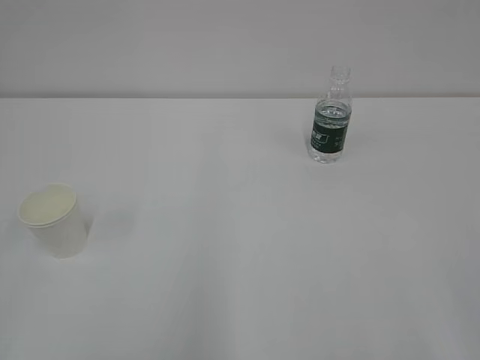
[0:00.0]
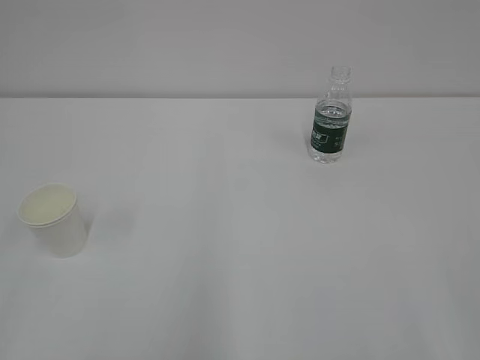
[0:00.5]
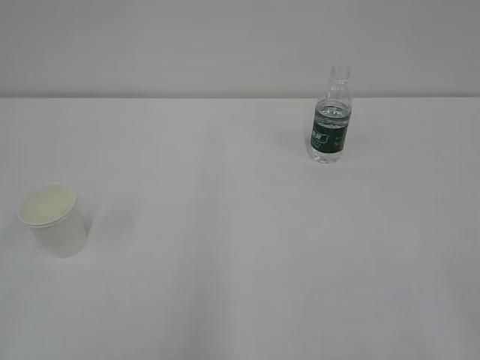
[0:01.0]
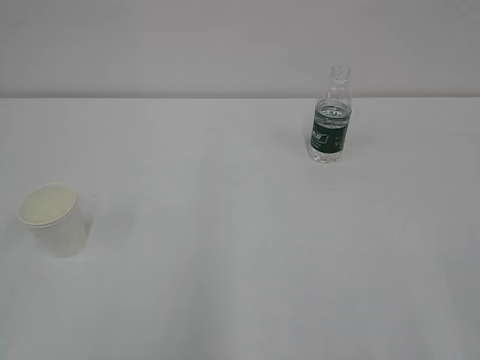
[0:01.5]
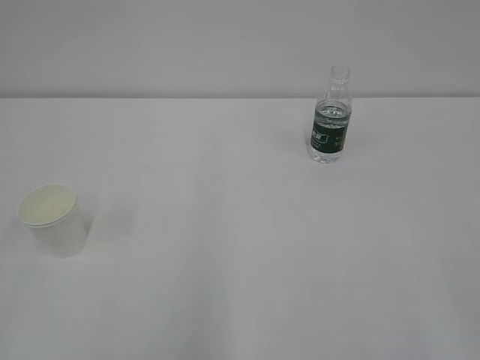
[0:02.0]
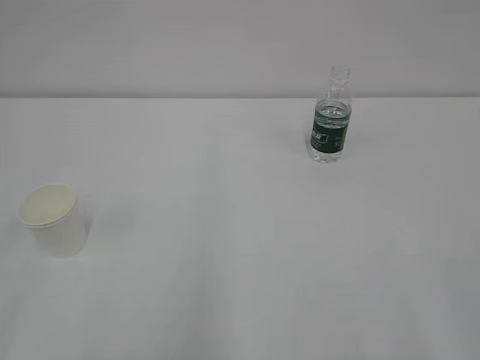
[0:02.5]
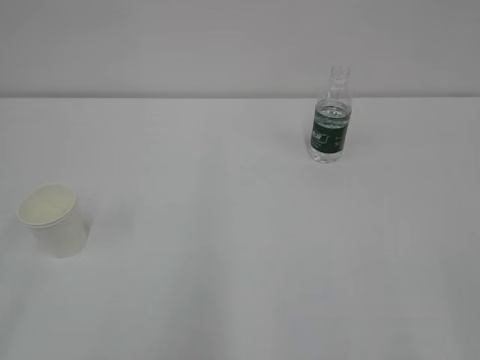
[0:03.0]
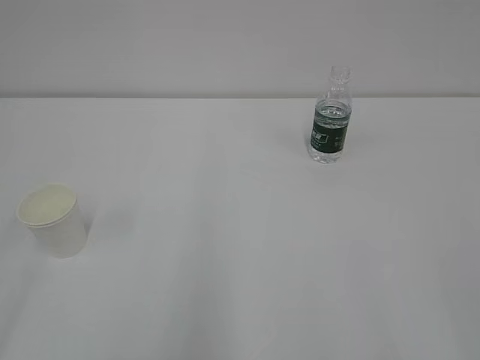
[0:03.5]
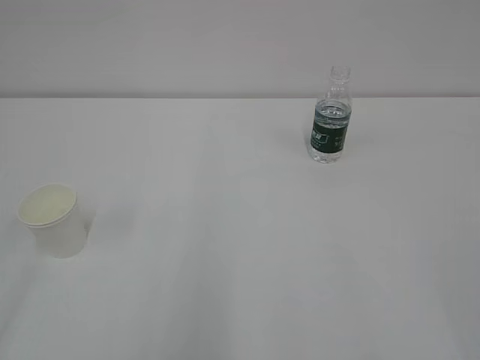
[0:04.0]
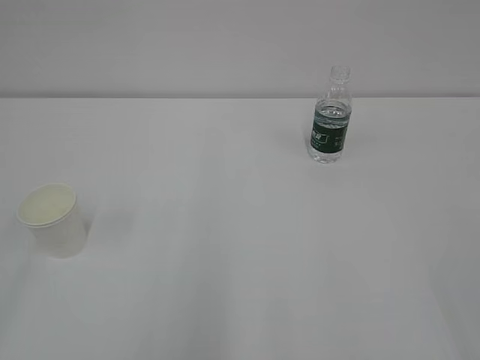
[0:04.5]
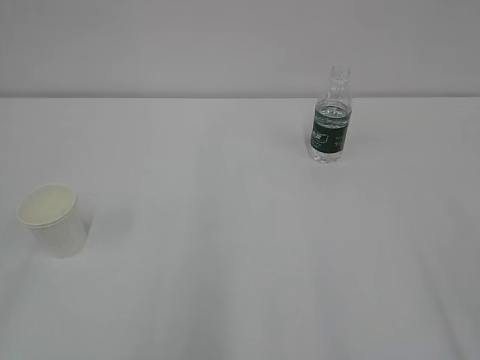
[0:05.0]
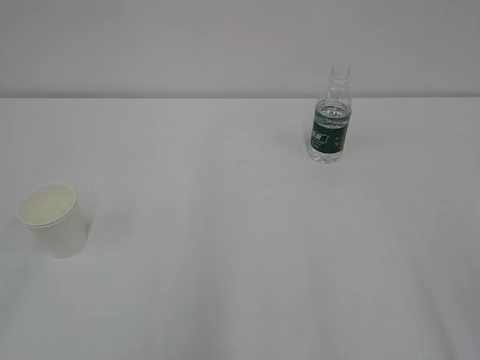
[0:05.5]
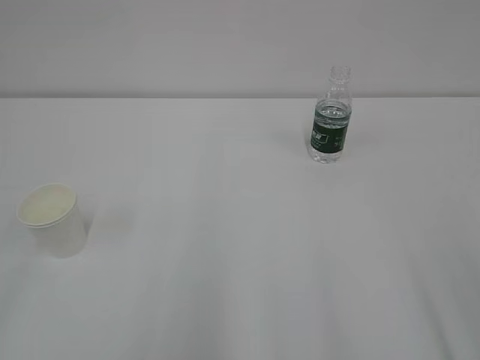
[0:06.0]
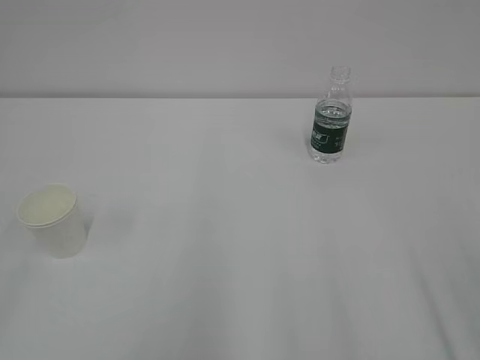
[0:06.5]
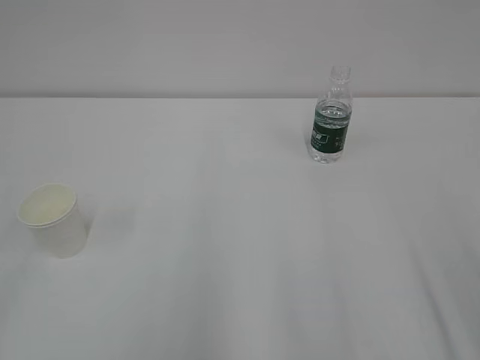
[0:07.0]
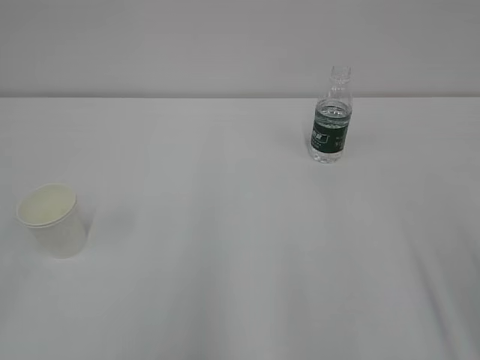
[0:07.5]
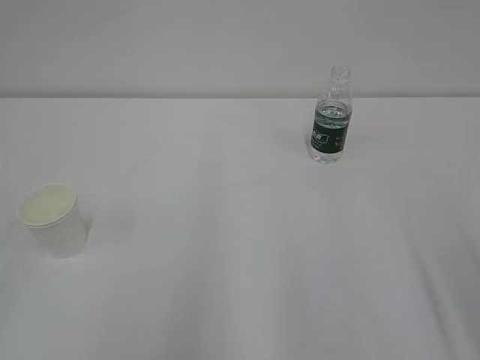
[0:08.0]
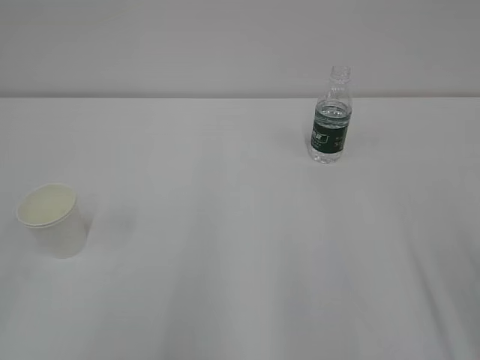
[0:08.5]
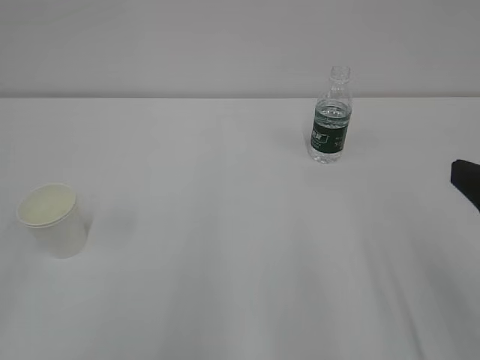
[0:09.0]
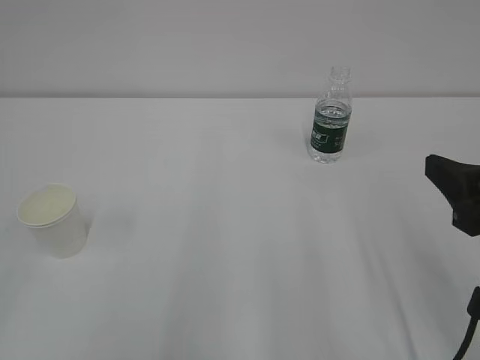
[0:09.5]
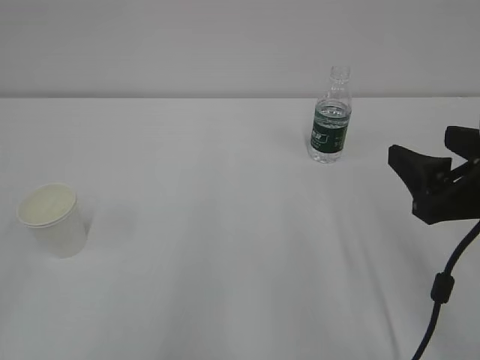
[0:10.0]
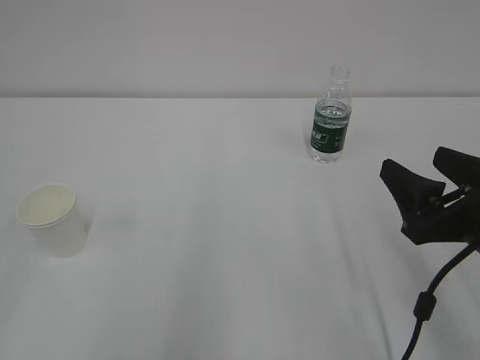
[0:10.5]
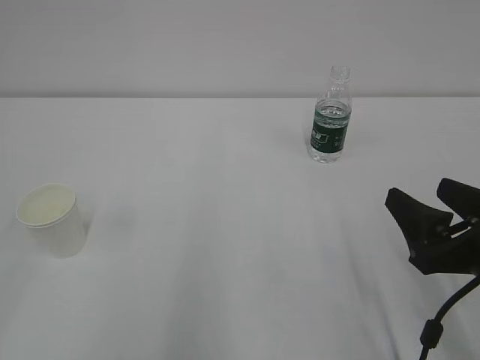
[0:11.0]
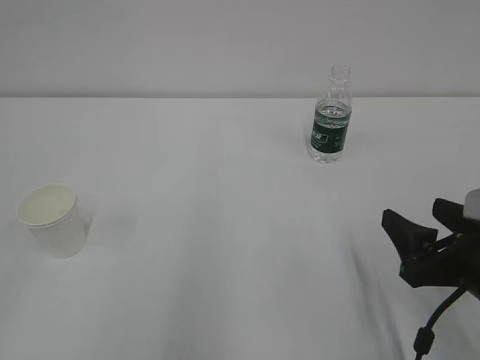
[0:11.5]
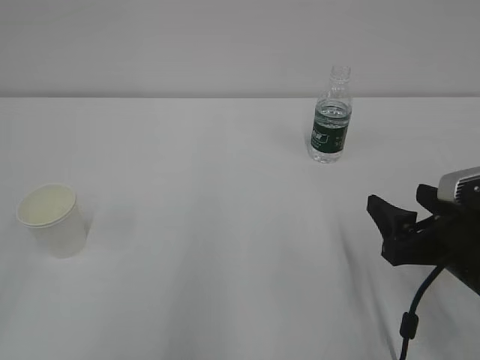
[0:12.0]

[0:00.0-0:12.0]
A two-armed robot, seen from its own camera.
0:08.0 to 0:10.0: The right gripper shifts roughly 10 cm forward, to the left and downward.
0:10.0 to 0:12.0: The right gripper goes some 10 cm downward.

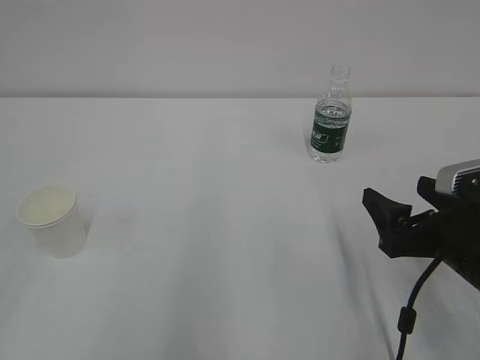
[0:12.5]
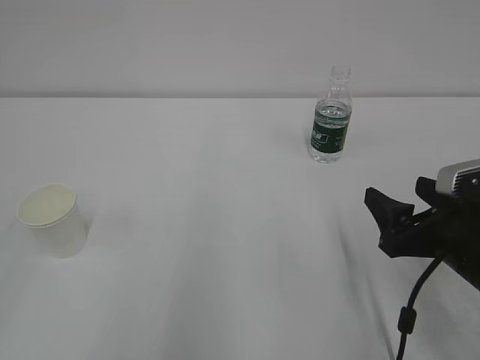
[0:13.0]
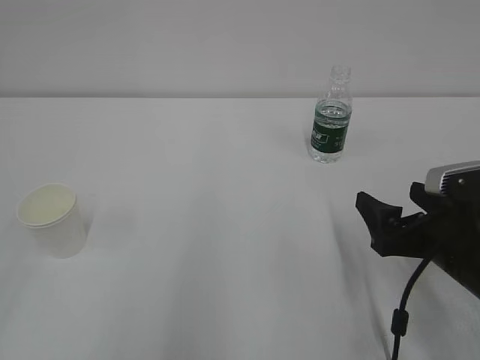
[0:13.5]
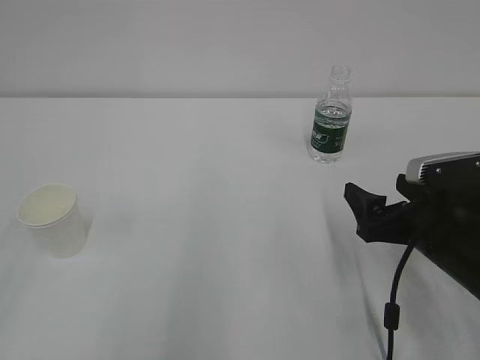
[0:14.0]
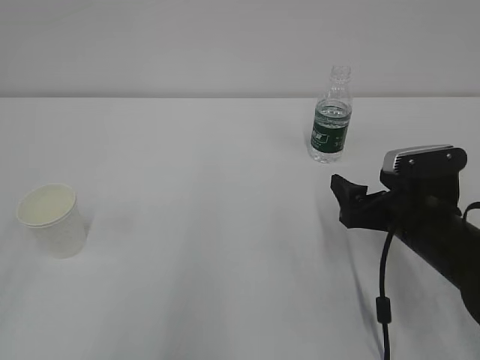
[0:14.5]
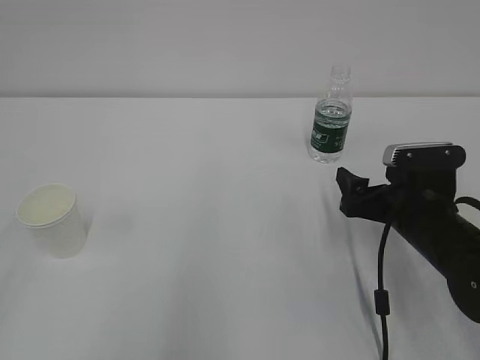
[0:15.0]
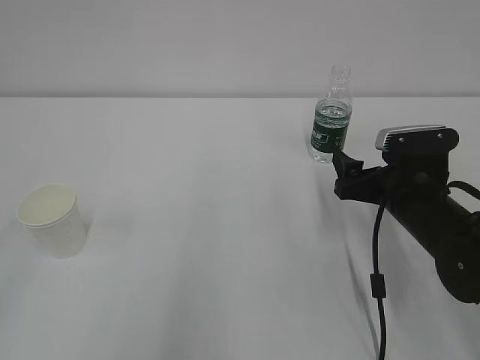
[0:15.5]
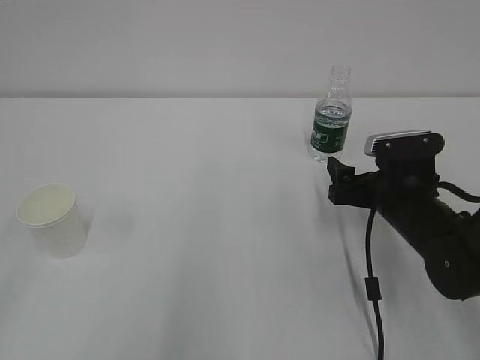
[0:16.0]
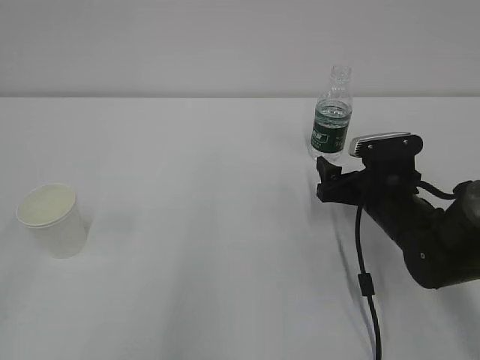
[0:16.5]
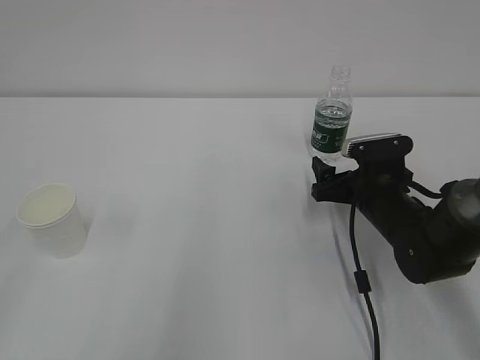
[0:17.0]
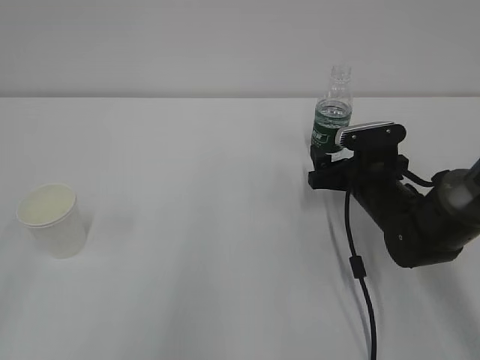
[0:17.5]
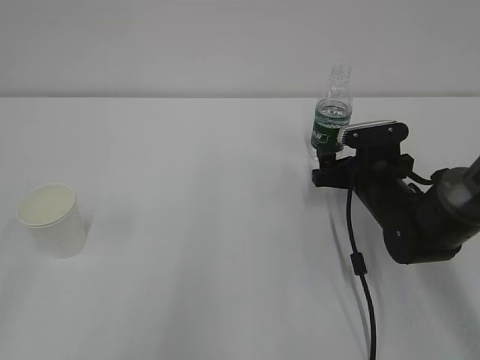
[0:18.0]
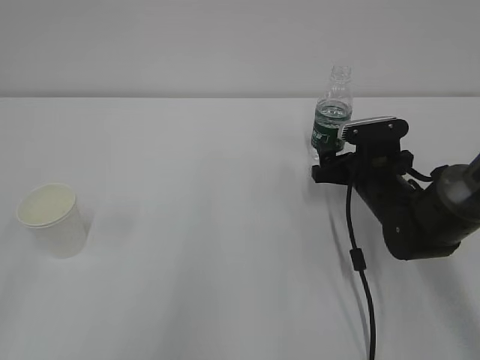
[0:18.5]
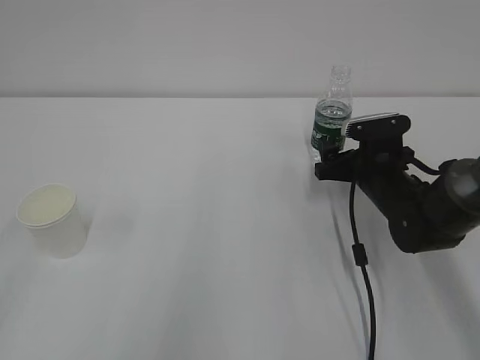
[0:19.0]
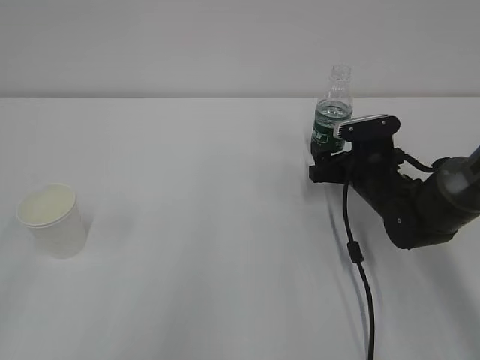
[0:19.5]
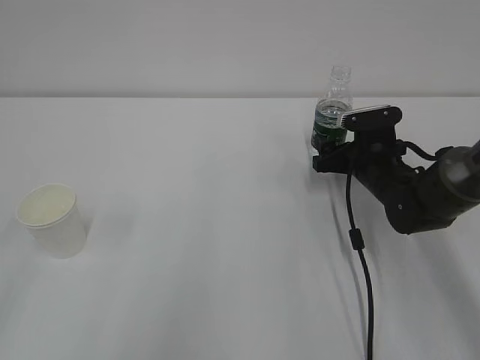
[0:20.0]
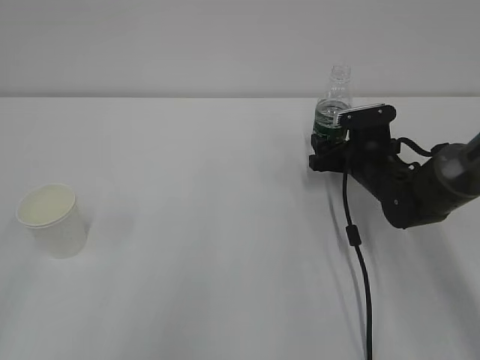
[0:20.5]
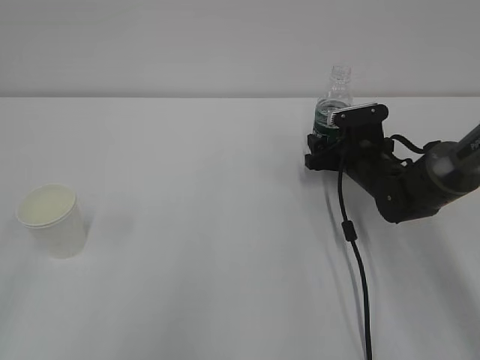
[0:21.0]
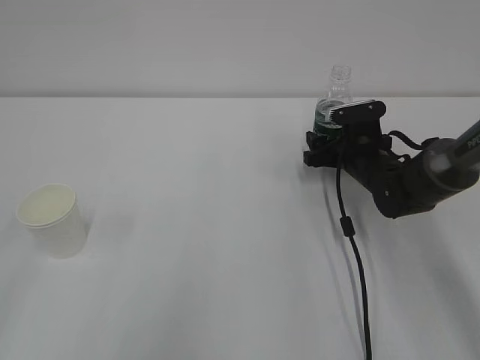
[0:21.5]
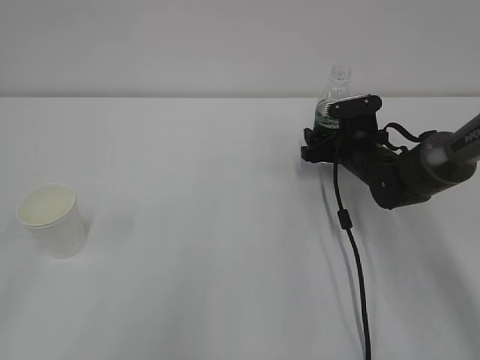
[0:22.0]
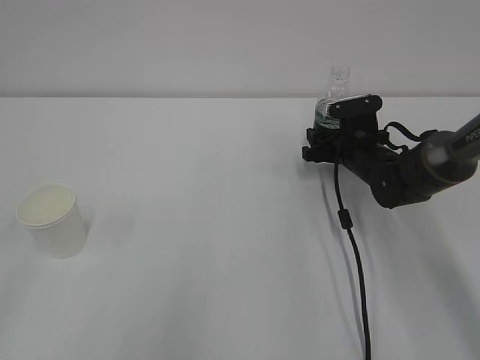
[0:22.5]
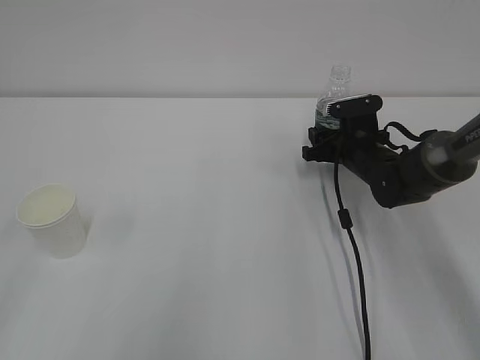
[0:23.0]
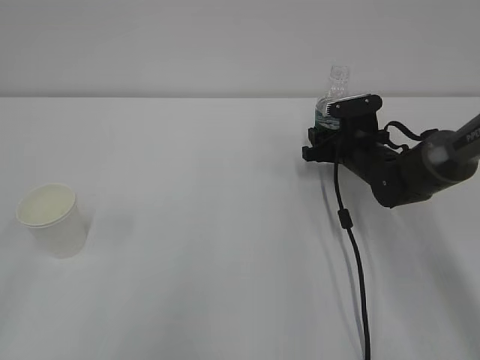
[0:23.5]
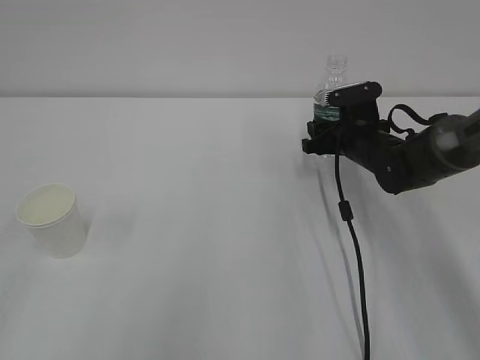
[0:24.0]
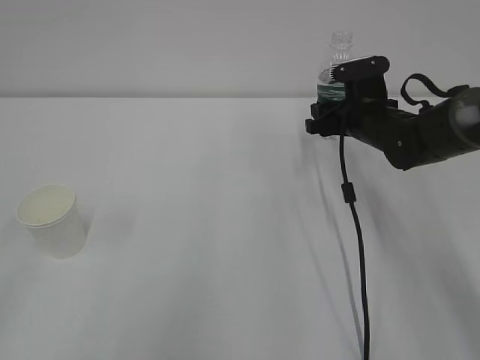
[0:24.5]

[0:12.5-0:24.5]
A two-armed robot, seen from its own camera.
0:12.5 to 0:14.5: The right gripper is displaced forward by roughly 5 cm.
0:14.5 to 0:16.5: The right gripper heads forward, covering some 5 cm.
0:16.5 to 0:18.5: The grippers stay close to where they were, moving slightly.
0:18.5 to 0:20.5: The grippers stay close to where they were, moving slightly.
0:20.5 to 0:22.5: The grippers stay close to where they were, moving slightly.
0:22.5 to 0:24.5: The right gripper is displaced upward by about 5 cm.

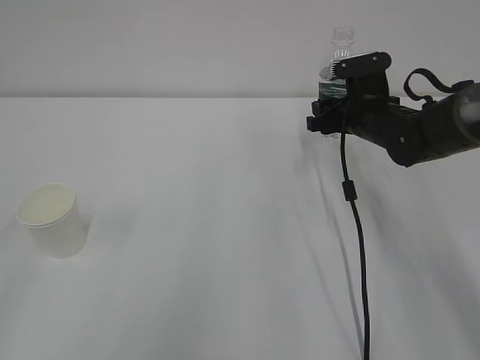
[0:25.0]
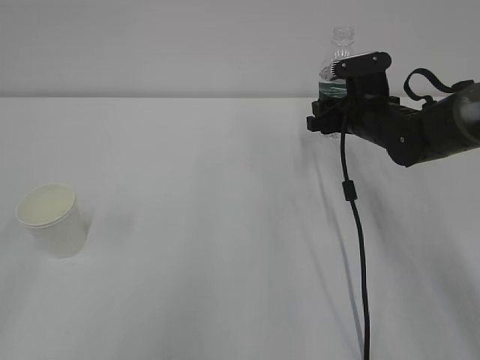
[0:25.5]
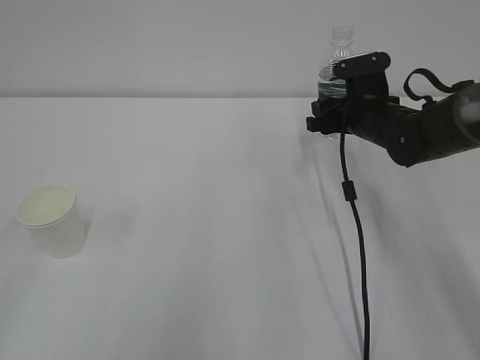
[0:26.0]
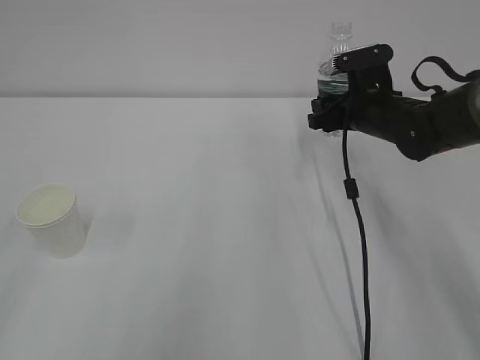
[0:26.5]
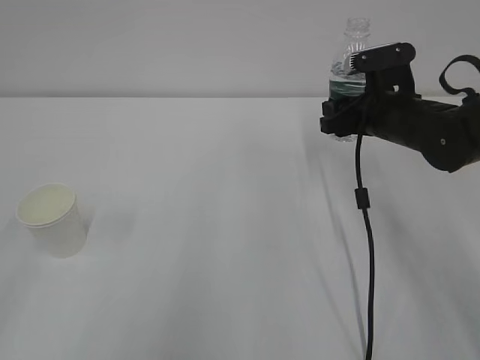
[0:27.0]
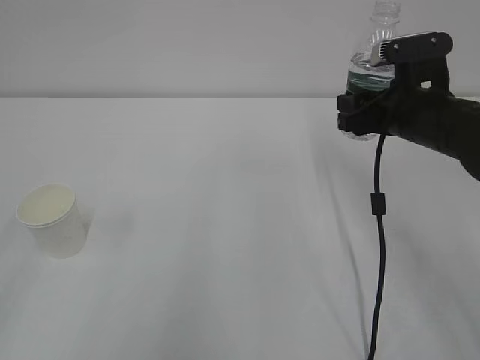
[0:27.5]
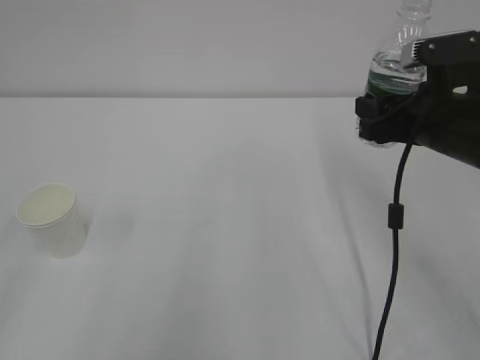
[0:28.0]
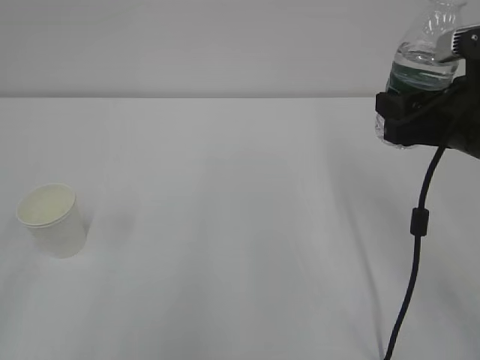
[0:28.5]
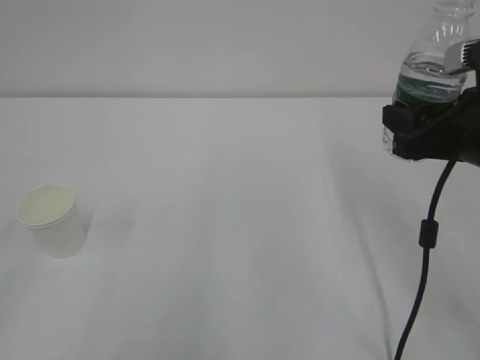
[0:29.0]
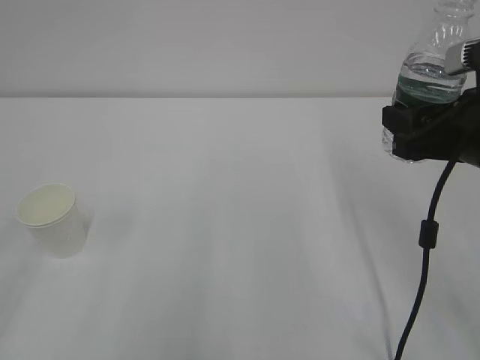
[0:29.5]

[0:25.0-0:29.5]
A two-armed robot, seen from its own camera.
0:25.0 to 0:27.0: The right gripper shifts by about 5 cm.
0:27.0 to 0:29.5: The right gripper travels backward and upward by some 15 cm.
